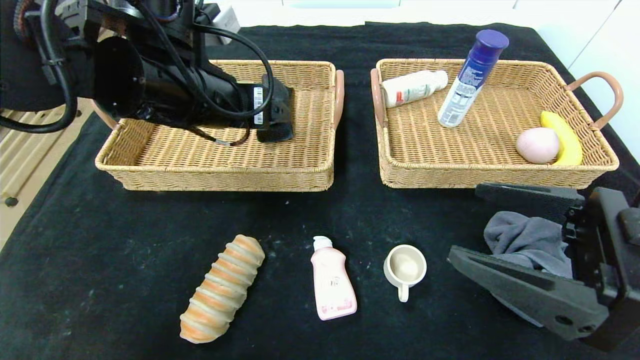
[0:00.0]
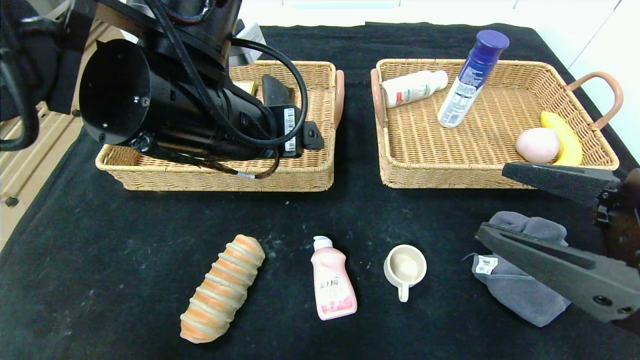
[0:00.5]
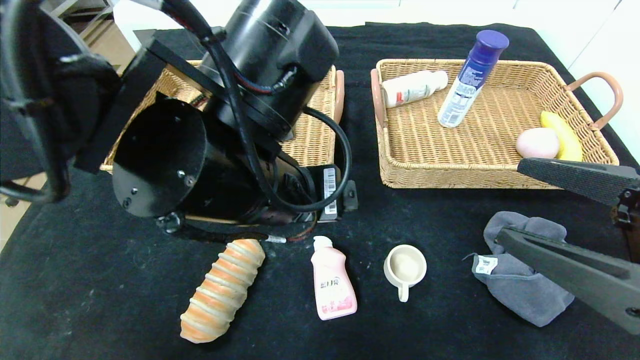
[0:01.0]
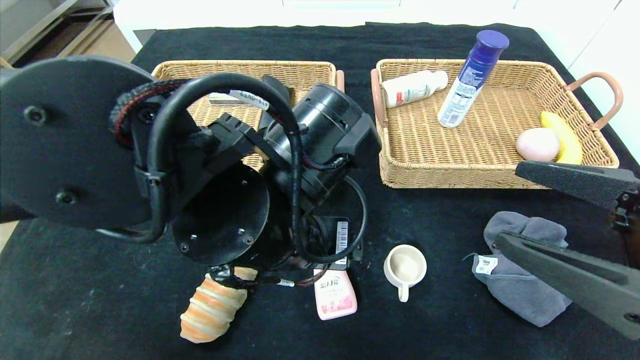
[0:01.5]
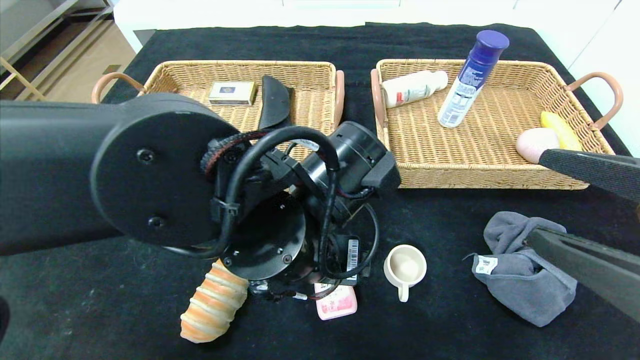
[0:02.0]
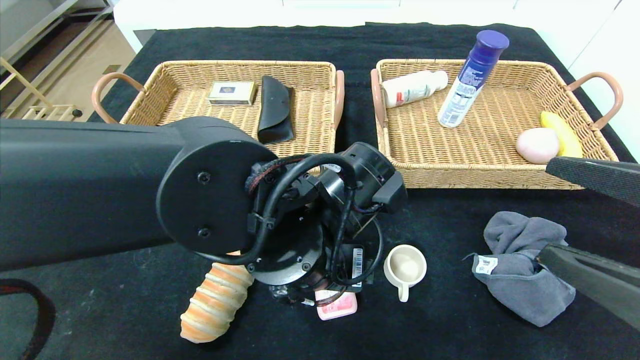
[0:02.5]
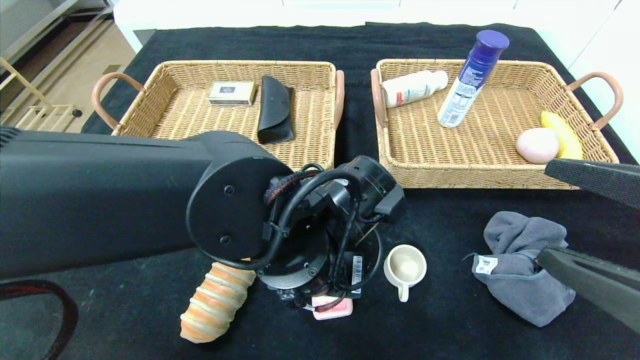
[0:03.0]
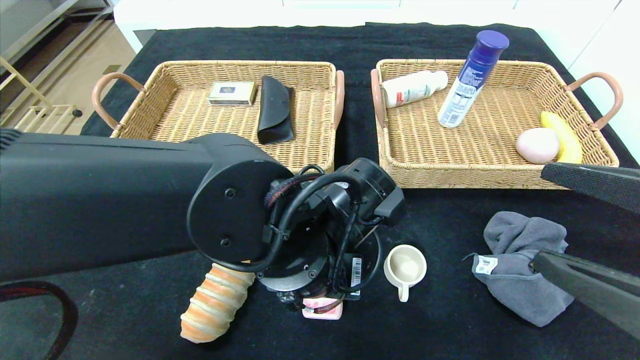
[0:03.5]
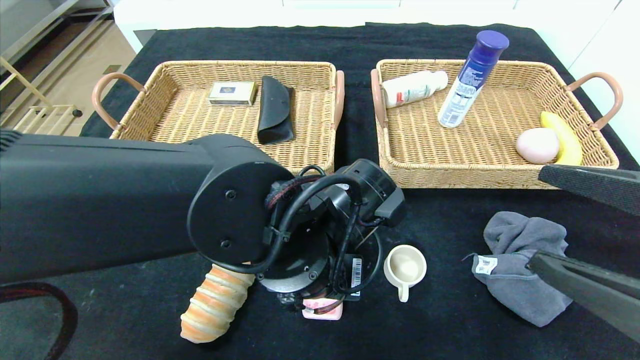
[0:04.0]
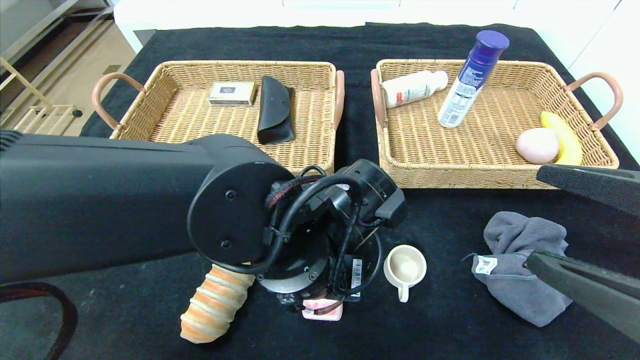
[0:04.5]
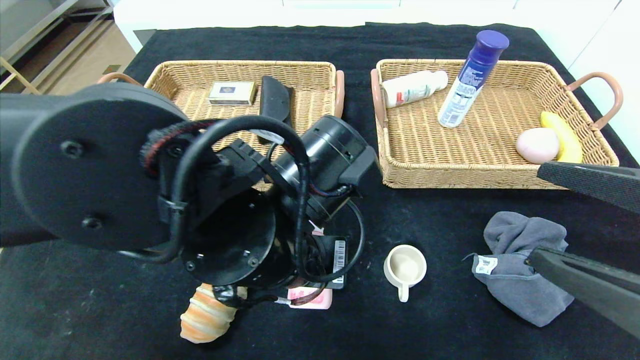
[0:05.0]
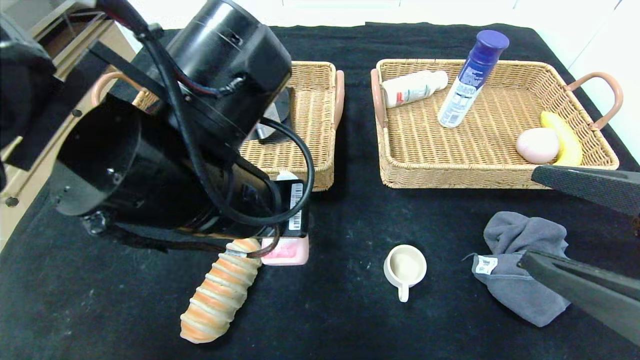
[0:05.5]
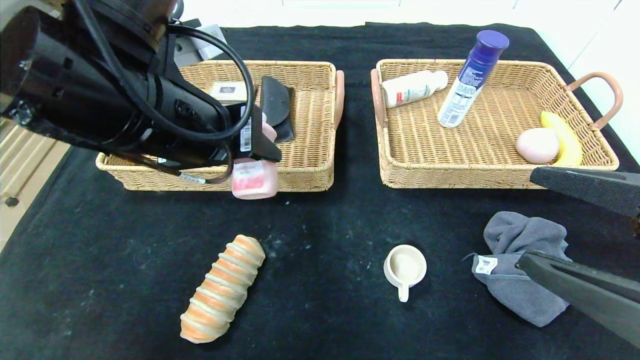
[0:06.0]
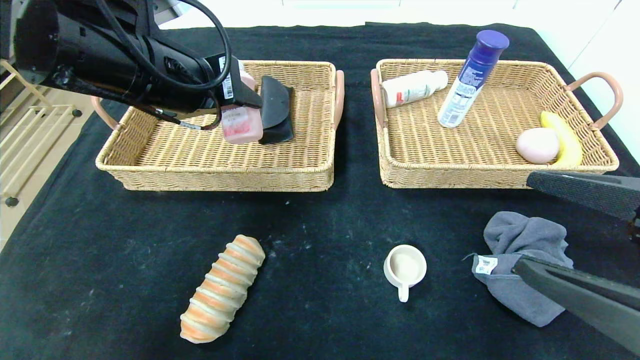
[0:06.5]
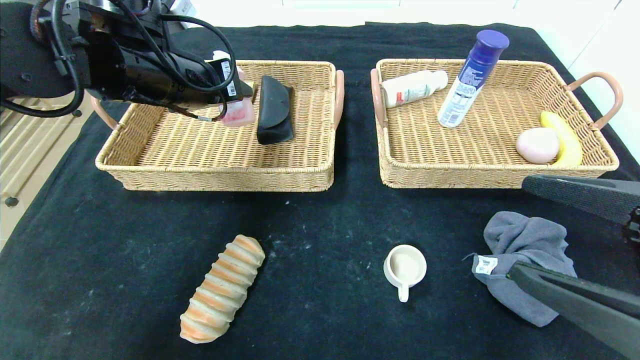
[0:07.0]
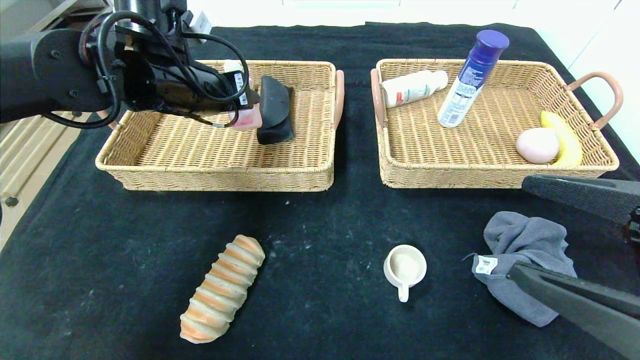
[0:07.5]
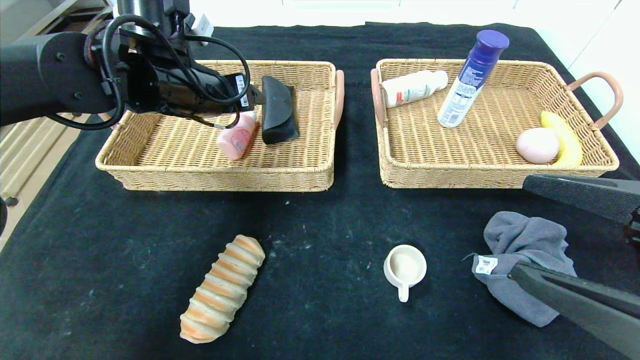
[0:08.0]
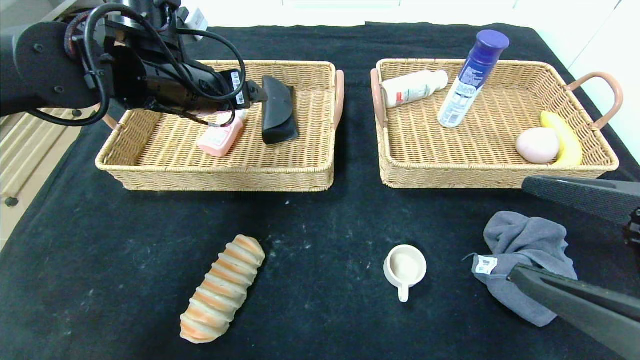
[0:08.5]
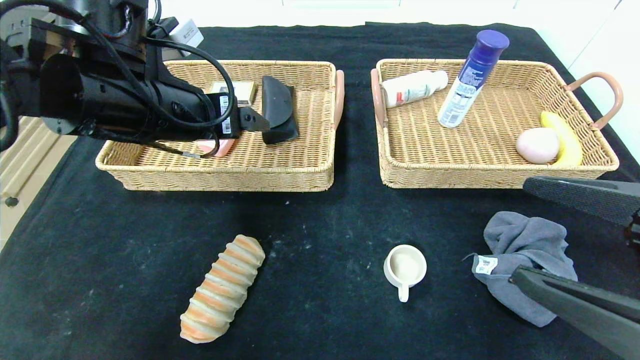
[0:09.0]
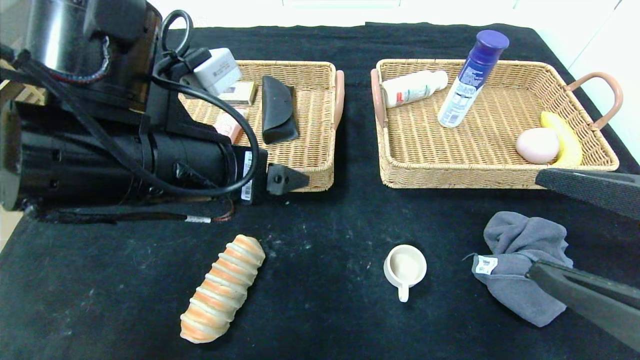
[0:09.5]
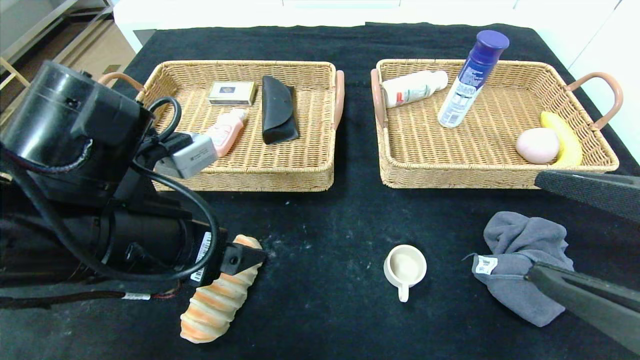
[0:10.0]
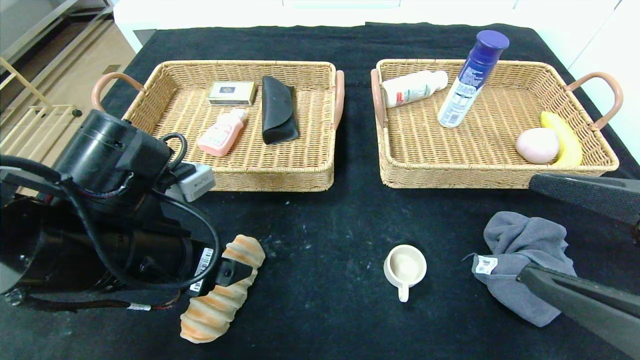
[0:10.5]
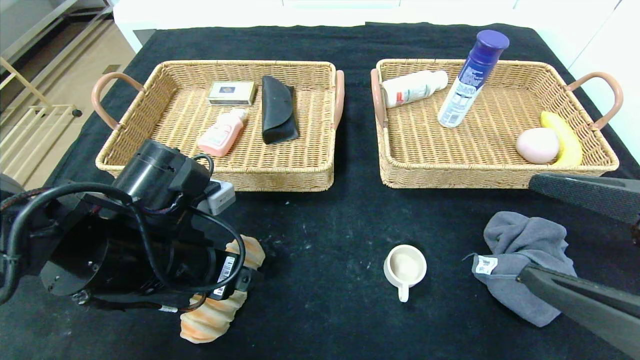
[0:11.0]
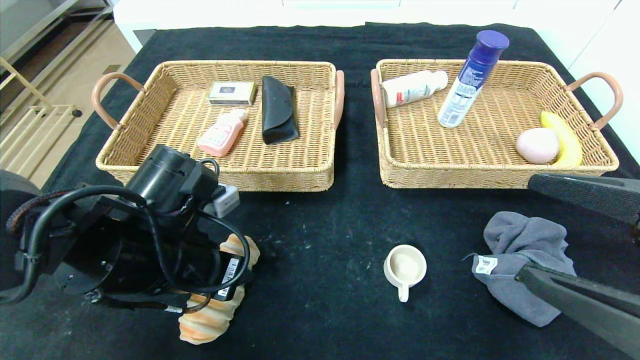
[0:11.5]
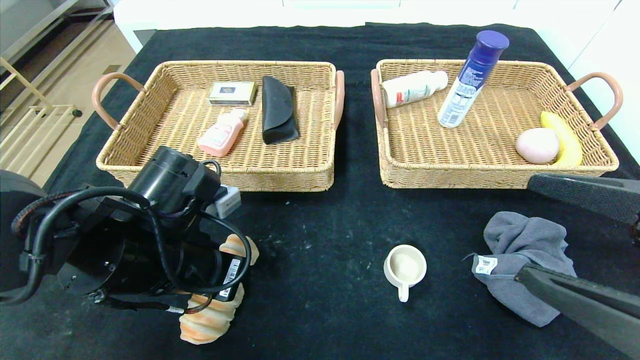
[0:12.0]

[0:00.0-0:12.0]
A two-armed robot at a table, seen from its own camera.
Step, 0:00.0 to 0:08.0: Grasp the detergent and put it in the left basket.
0:00.0 to 0:02.0: The left gripper heads to the right, downward and backward, covering about 20 cm.
0:02.0 to 0:04.0: The left gripper closes its fingers.
0:04.0 to 0:06.0: The left gripper moves upward and to the left, about 20 cm.
0:06.0 to 0:08.0: The left gripper heads forward, covering approximately 15 cm.
0:08.0 to 0:10.0: The left gripper moves backward, approximately 20 cm.
0:10.0 to 0:12.0: The left gripper moves downward, some 5 cm, and closes its fingers.

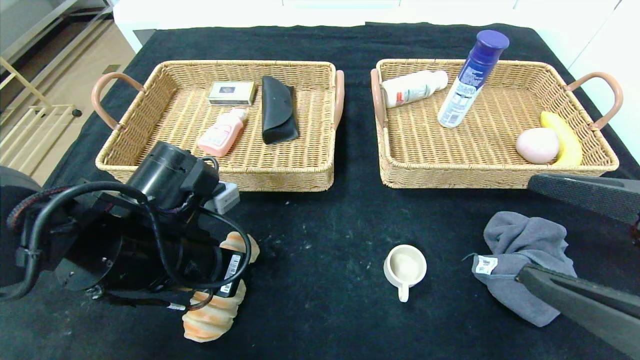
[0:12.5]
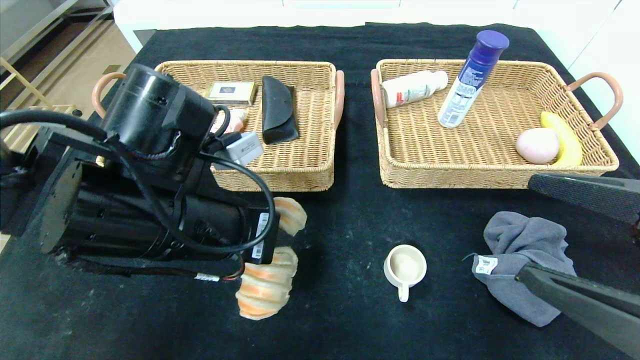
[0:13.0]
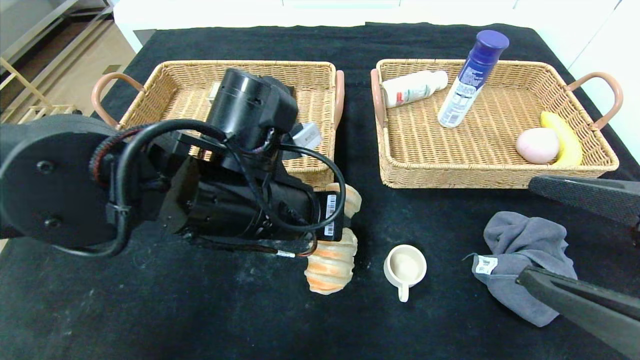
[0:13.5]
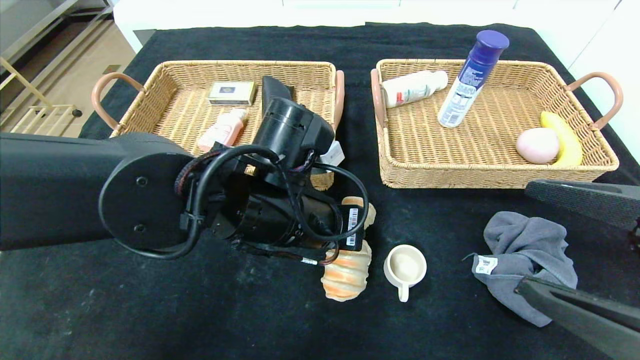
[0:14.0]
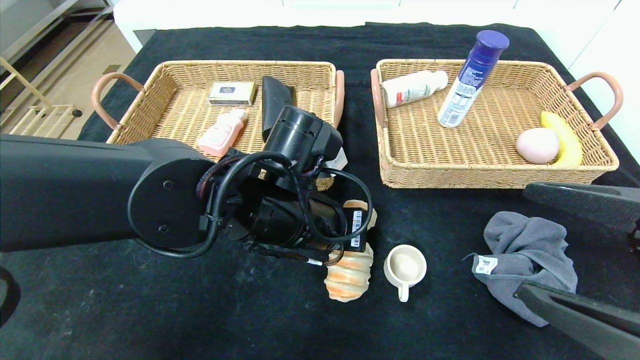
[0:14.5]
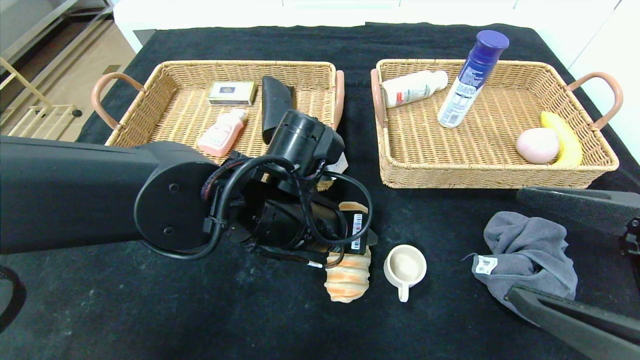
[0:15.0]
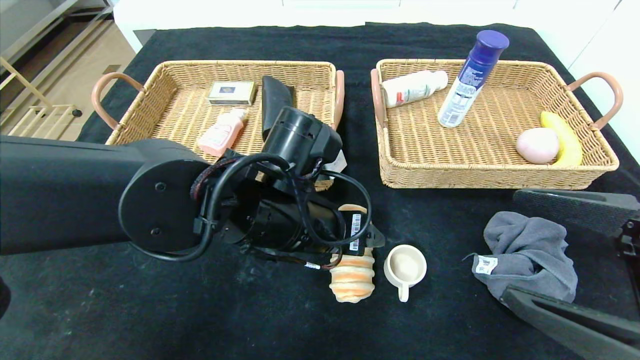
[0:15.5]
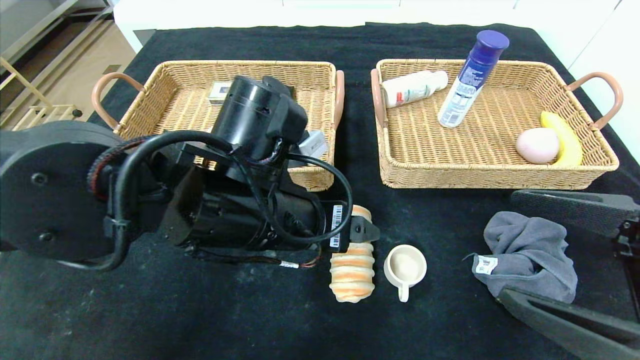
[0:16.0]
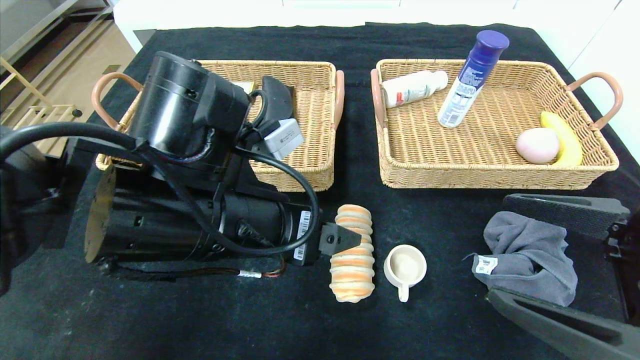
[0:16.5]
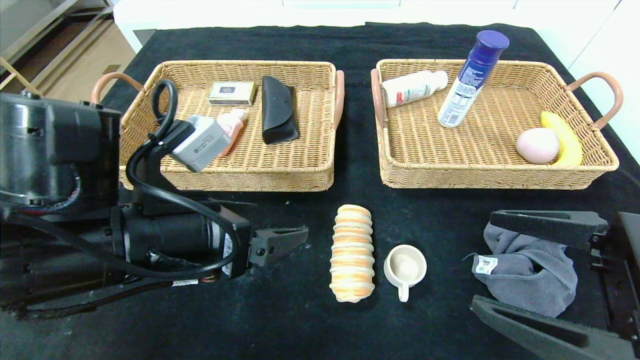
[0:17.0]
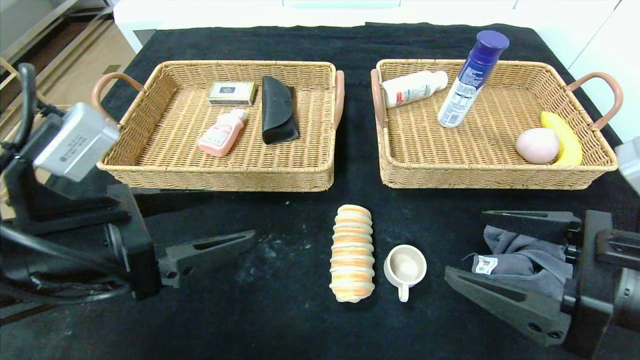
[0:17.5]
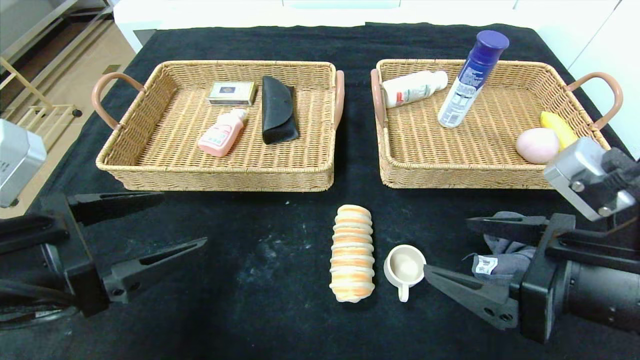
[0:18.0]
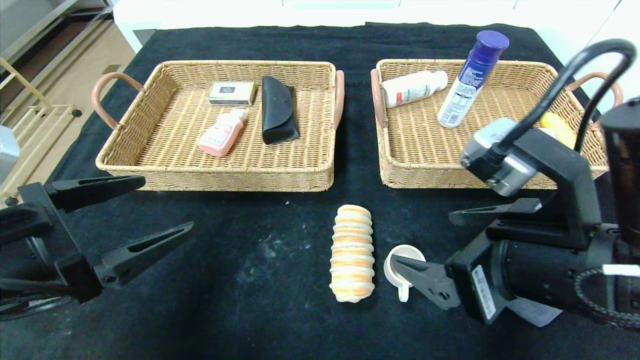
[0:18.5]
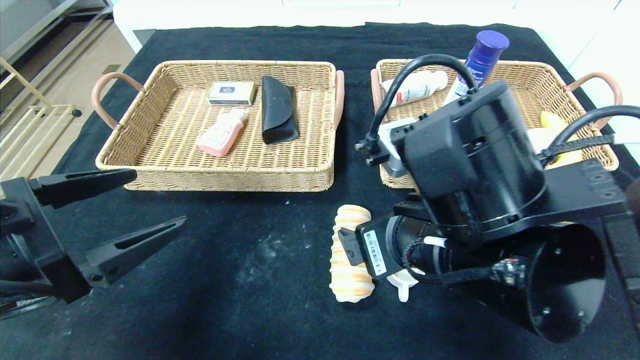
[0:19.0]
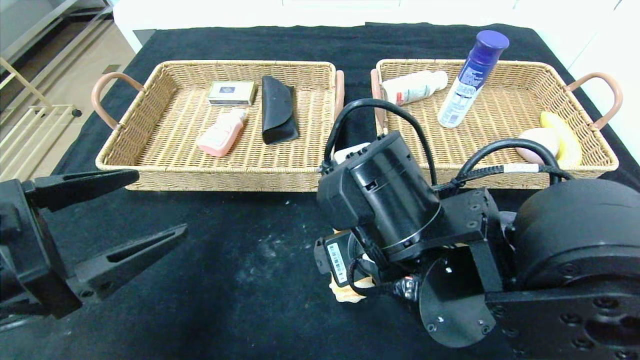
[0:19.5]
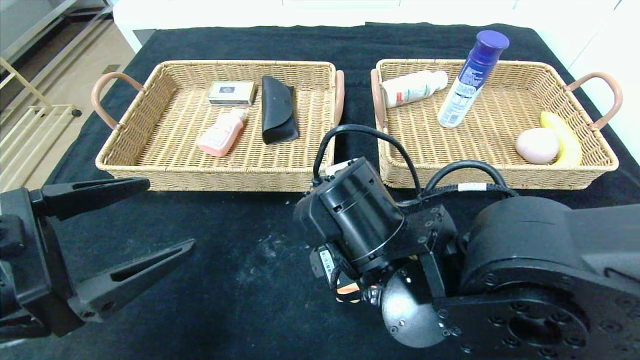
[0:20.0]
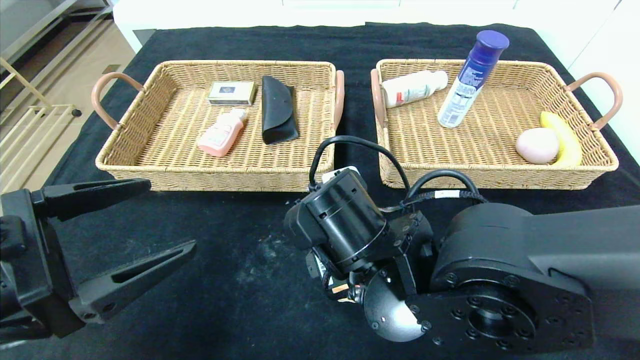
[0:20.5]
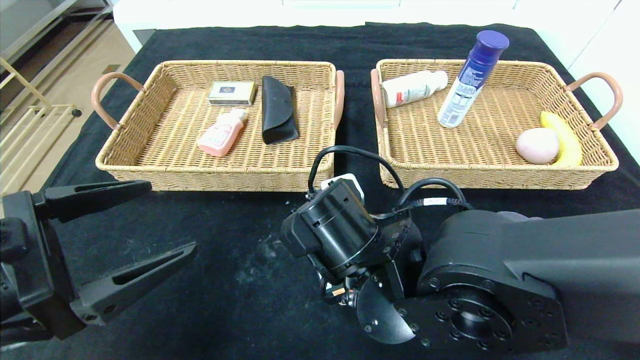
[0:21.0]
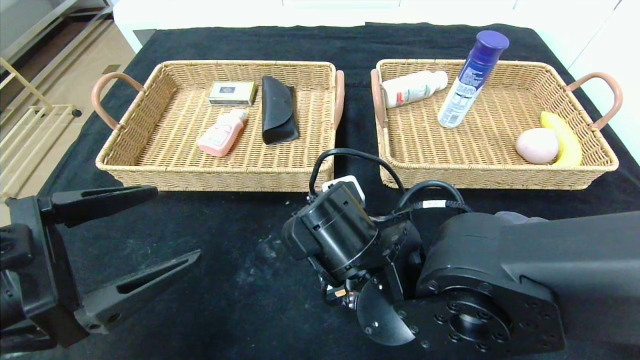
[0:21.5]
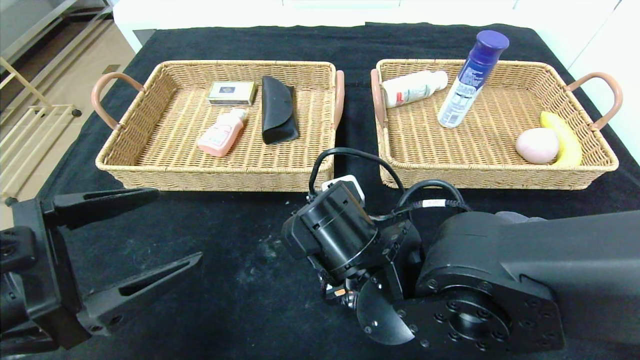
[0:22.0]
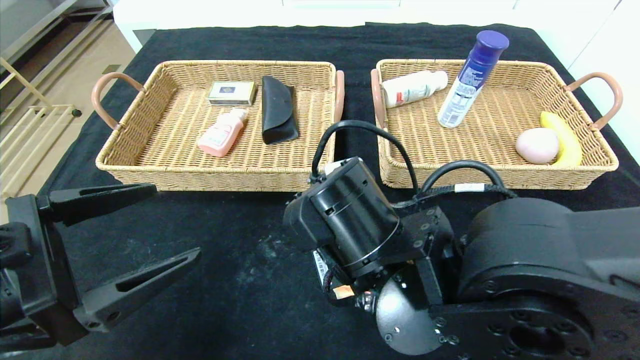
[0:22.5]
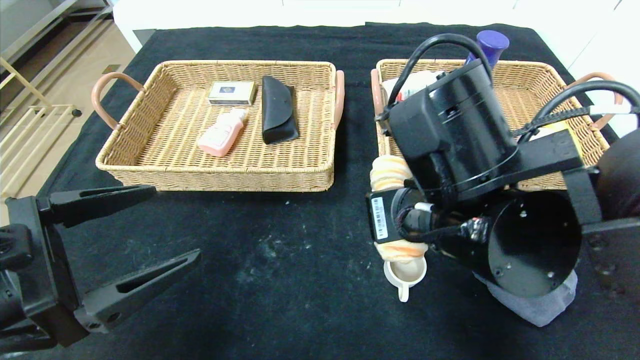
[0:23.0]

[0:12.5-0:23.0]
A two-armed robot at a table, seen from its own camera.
Step, 0:12.5 to 0:15.5: Place the long bread in the center of the table.
0:12.5 to 0:14.5: The left gripper moves to the right, about 10 cm.
0:14.5 to 0:16.5: The left gripper moves backward and to the left, some 5 cm, and opens up.
0:16.5 to 0:19.0: The right gripper travels to the left and forward by roughly 20 cm, while the left gripper heads to the left, covering approximately 15 cm.
0:19.0 to 0:21.0: The right gripper moves downward and to the left, about 10 cm, and closes.
0:21.0 to 0:23.0: The right gripper goes about 10 cm upward and to the right, and closes.
